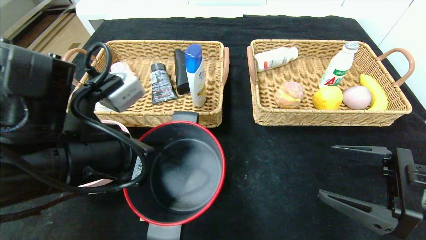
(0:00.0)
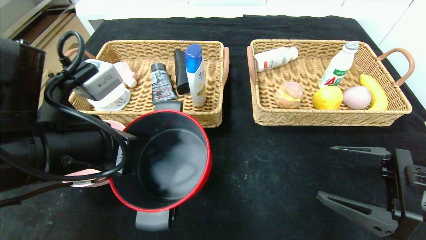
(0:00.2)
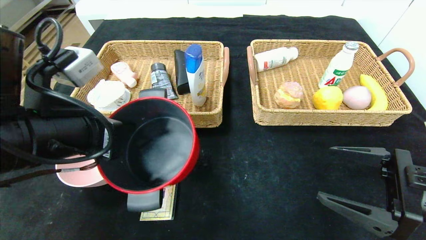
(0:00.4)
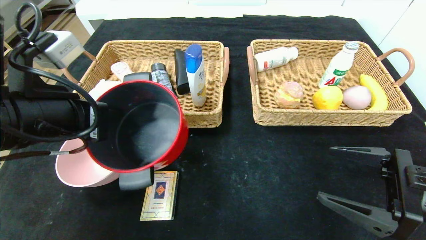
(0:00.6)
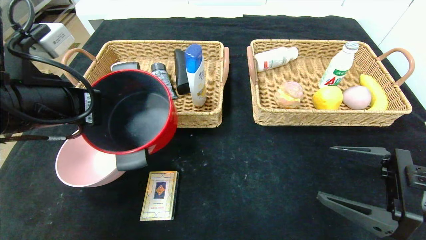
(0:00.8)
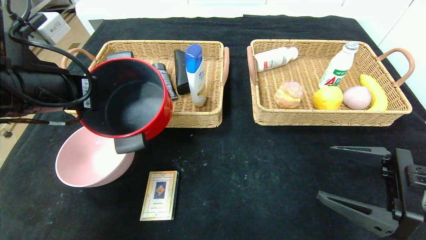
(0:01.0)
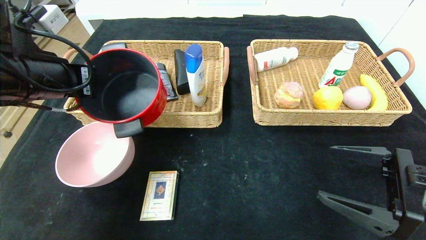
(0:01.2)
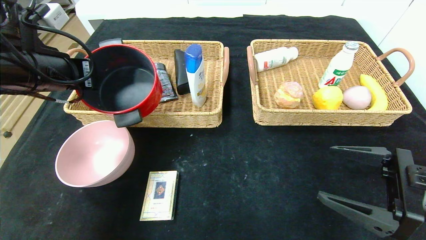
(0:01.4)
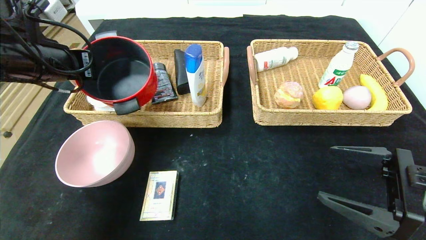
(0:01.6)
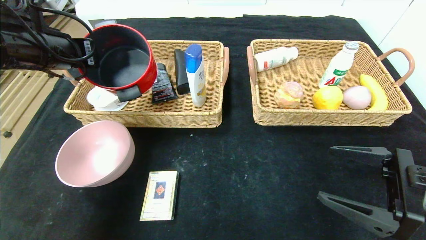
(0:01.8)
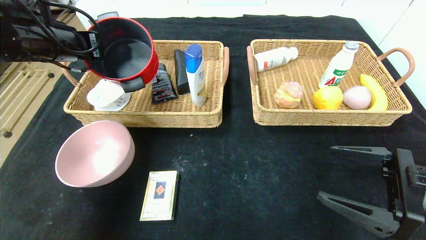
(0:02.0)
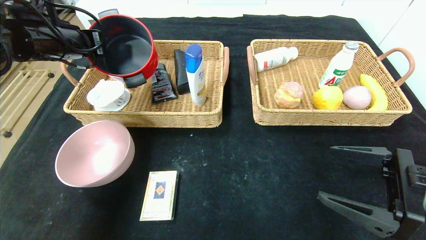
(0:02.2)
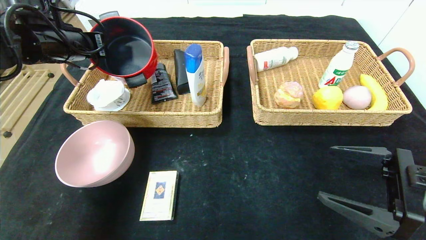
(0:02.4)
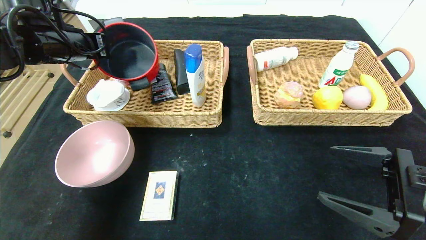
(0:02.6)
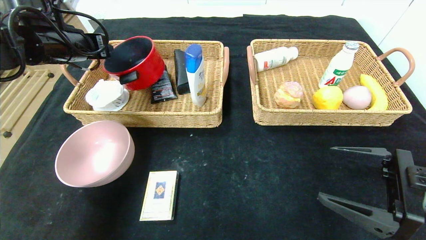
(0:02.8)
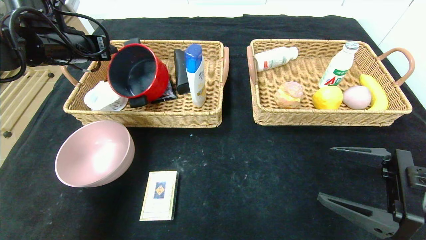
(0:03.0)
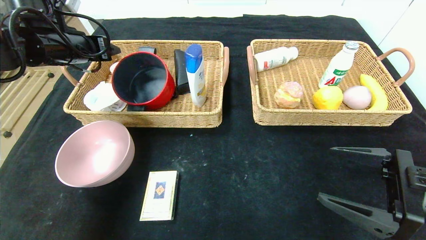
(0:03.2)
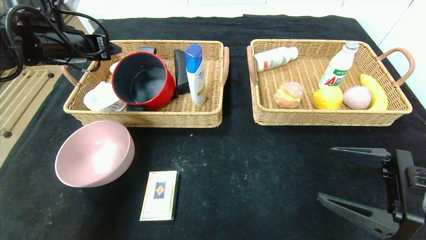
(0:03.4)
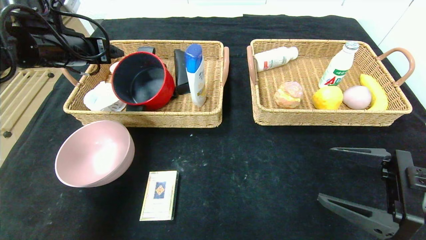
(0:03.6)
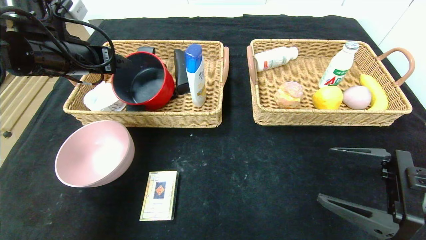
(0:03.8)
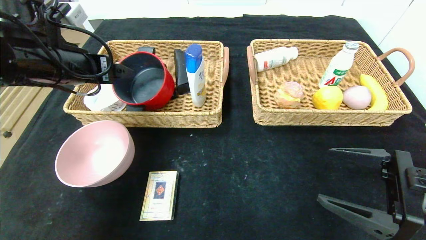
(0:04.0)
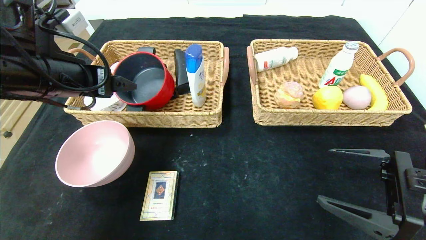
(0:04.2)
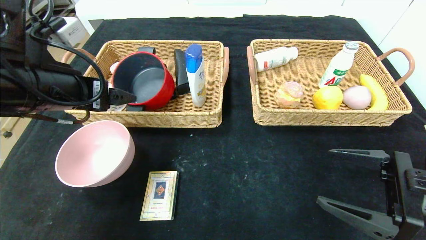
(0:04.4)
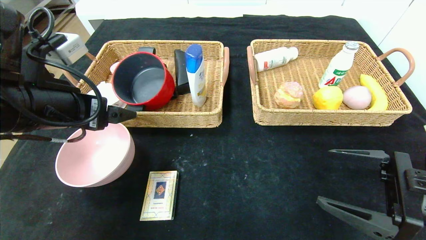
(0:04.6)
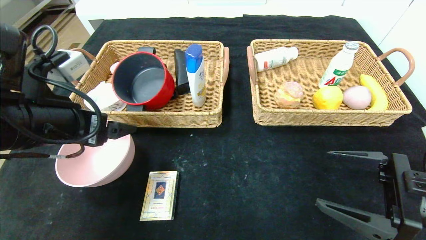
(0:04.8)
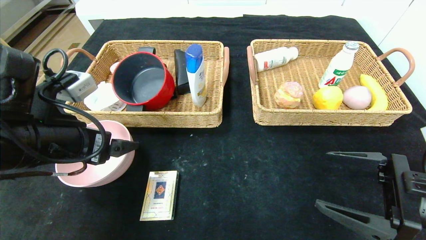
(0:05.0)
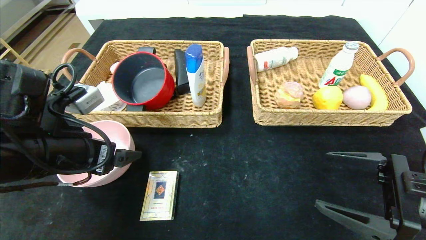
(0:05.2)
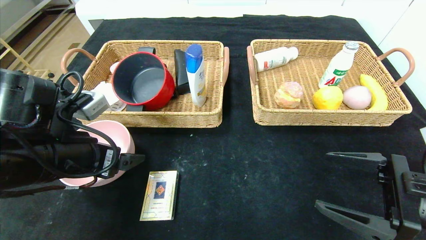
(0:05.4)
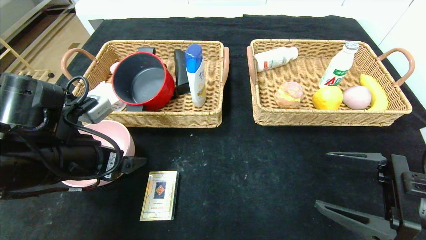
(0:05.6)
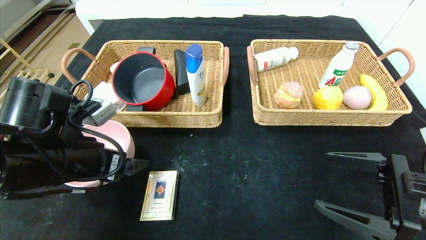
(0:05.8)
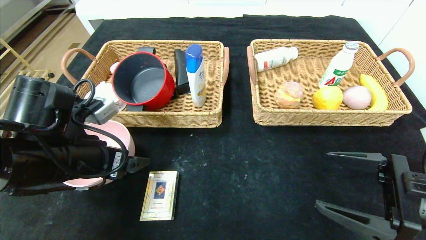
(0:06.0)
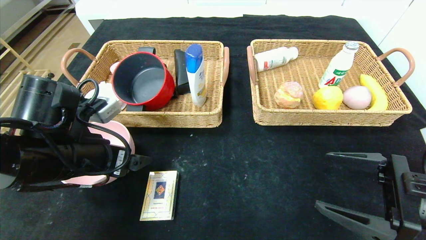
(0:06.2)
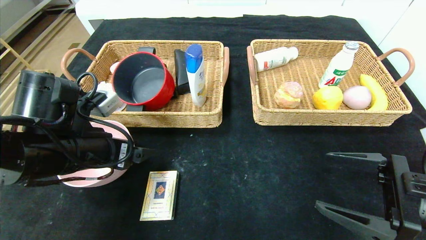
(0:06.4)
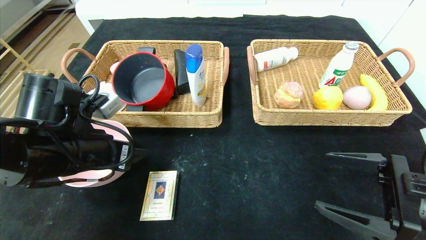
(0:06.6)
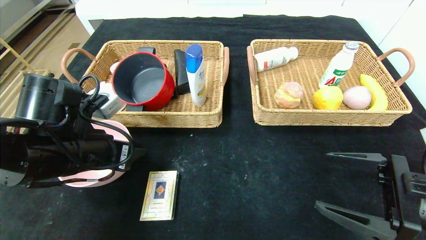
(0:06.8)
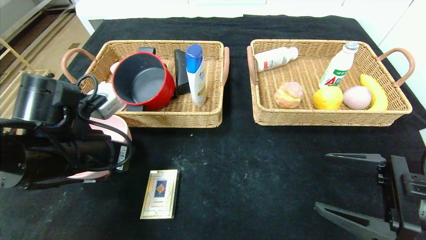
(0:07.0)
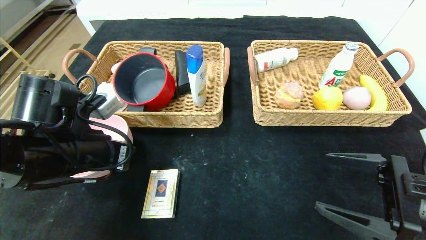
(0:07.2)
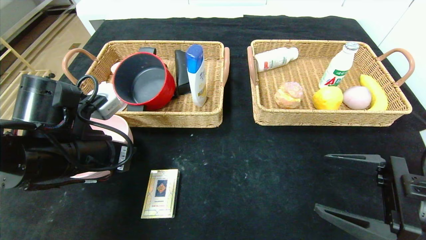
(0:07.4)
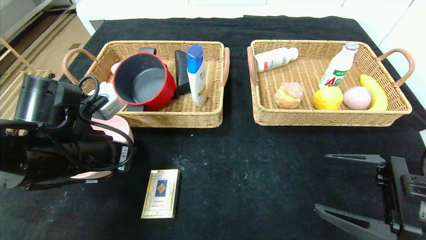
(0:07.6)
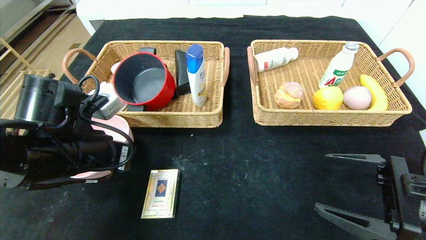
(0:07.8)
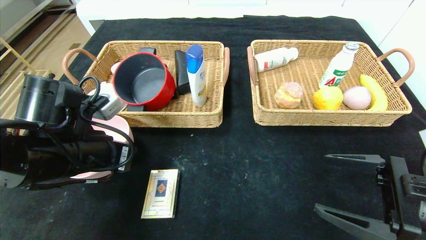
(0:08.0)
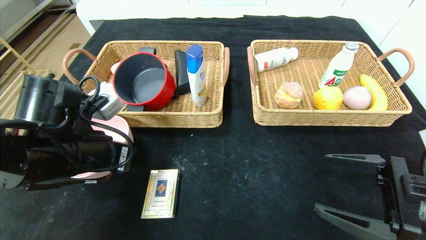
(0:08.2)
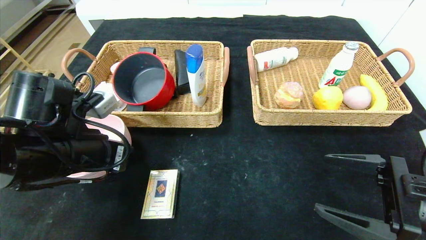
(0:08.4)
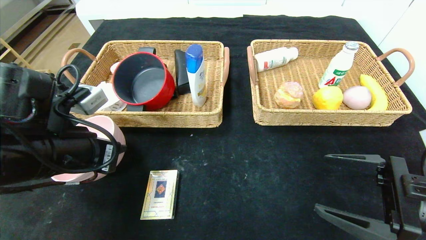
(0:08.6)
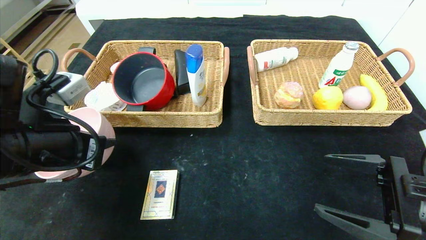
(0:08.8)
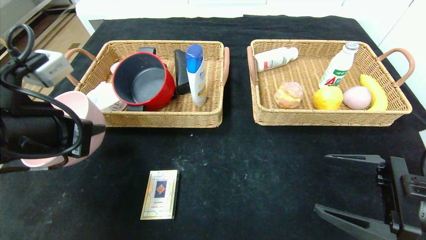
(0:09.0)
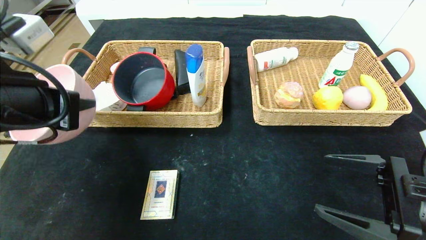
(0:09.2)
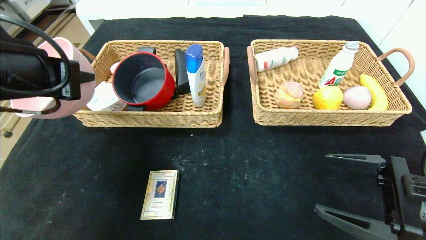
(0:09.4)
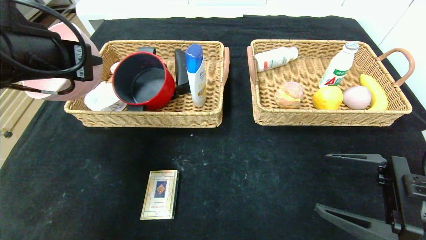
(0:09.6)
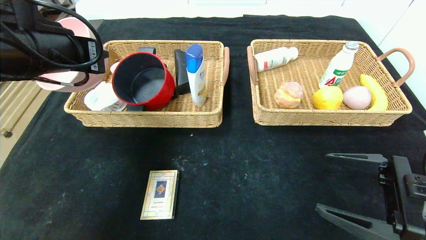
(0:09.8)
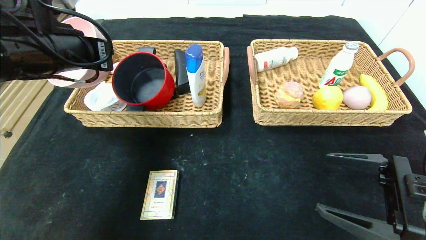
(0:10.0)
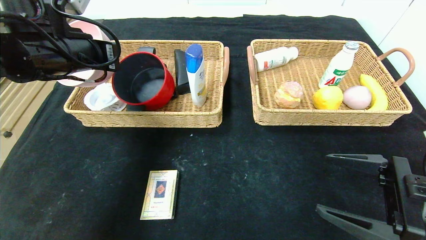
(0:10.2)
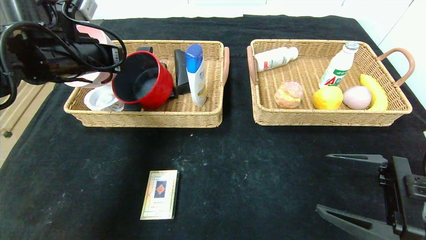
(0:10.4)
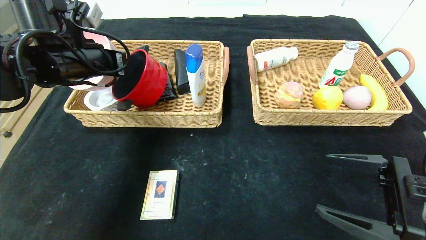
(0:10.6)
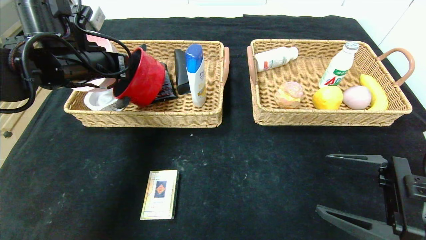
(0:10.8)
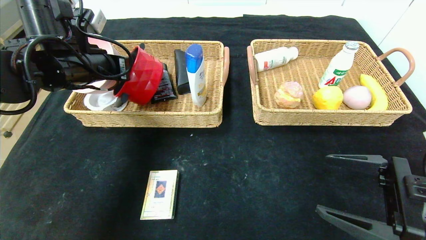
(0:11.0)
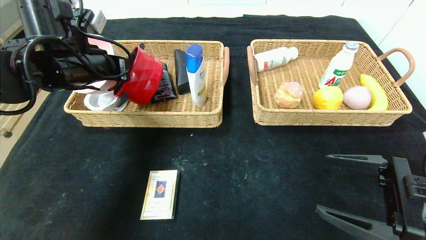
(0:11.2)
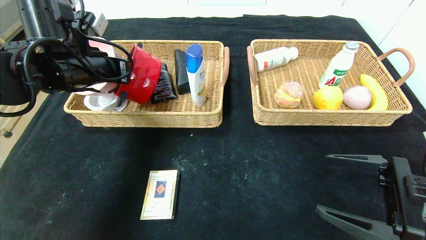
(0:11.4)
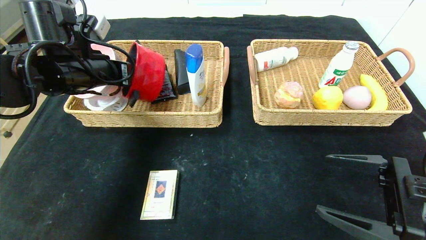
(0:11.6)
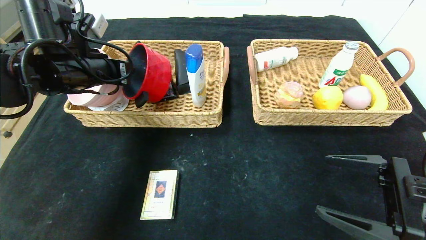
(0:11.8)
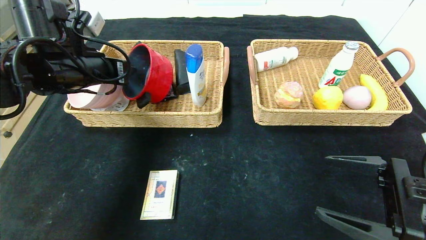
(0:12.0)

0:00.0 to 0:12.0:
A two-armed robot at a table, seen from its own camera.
Step, 0:00.0 to 0:03.6: Grasp the red pot and put it in the left basket.
0:00.0 to 0:01.6: The left gripper moves forward, to the left and upward, roughly 20 cm.
0:01.6 to 0:03.0: The left gripper moves forward, about 5 cm, and opens up.
0:03.0 to 0:04.4: The left gripper moves backward and to the right, about 15 cm, and opens its fingers.
0:04.4 to 0:06.0: The left gripper goes roughly 10 cm downward.
0:06.0 to 0:07.6: The left gripper closes its fingers.
0:07.6 to 0:09.0: The left gripper shifts approximately 5 cm upward.
0:09.0 to 0:10.4: The left gripper is displaced forward by about 15 cm.
0:10.4 to 0:12.0: The left gripper opens up.

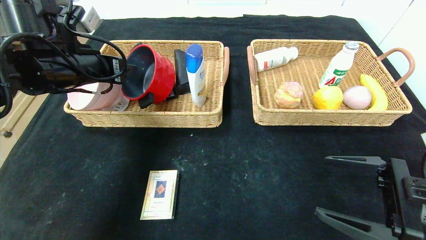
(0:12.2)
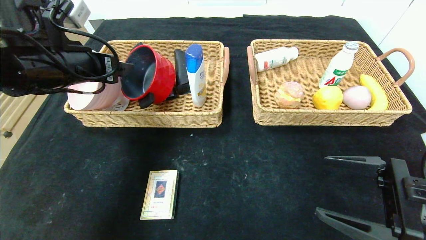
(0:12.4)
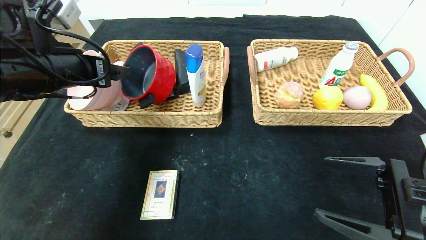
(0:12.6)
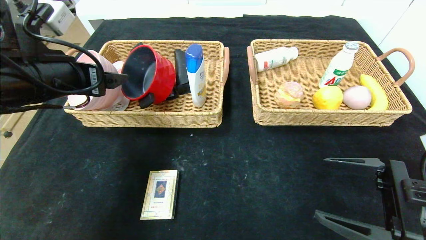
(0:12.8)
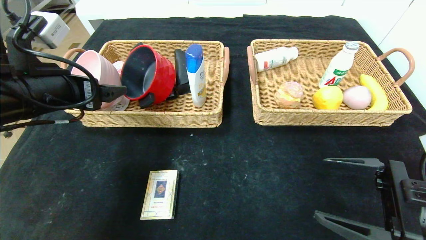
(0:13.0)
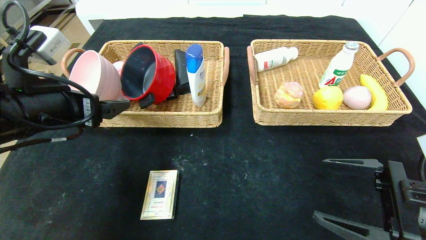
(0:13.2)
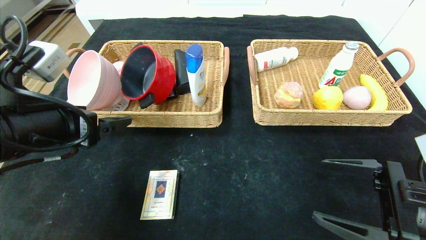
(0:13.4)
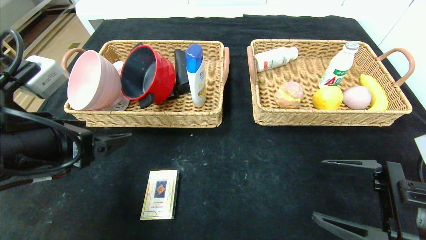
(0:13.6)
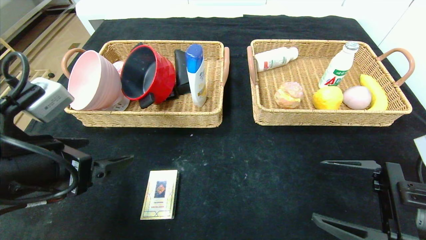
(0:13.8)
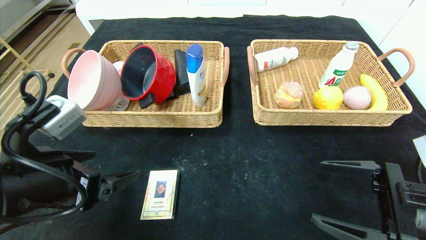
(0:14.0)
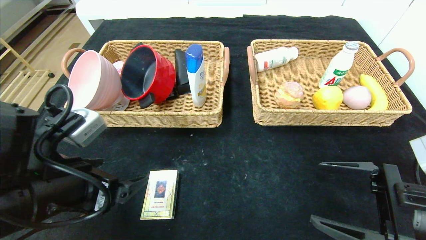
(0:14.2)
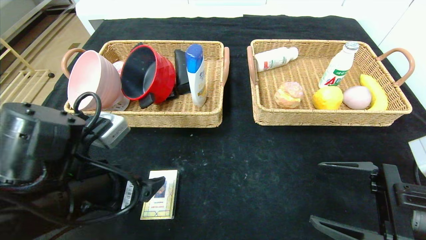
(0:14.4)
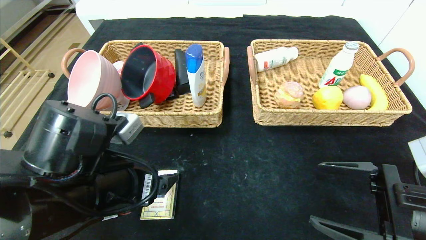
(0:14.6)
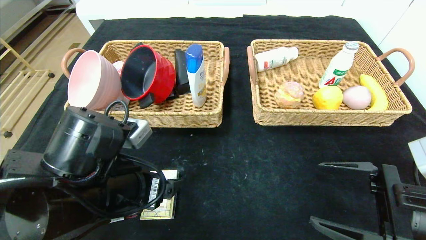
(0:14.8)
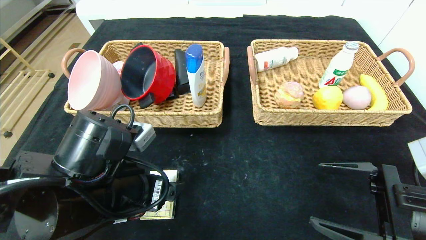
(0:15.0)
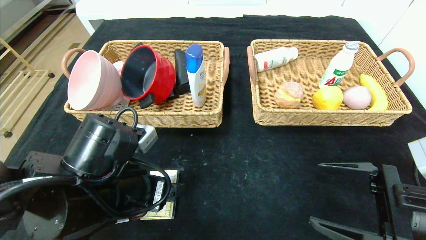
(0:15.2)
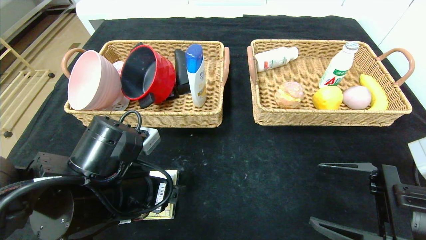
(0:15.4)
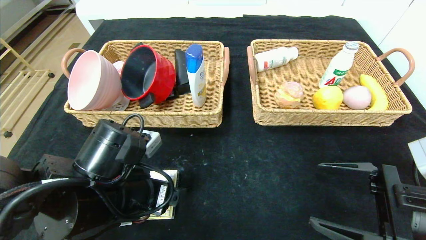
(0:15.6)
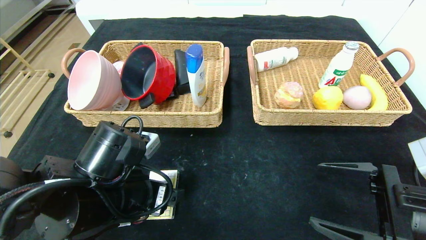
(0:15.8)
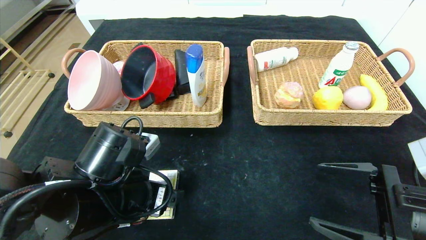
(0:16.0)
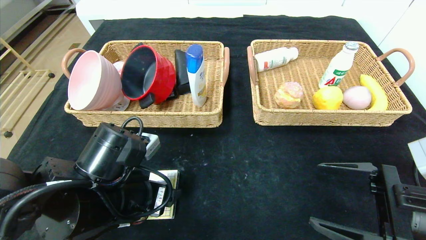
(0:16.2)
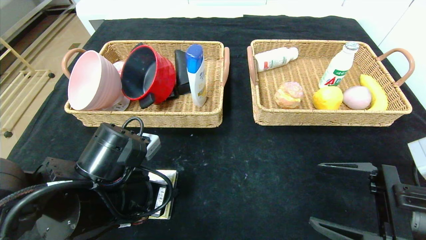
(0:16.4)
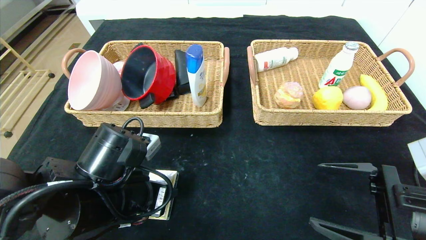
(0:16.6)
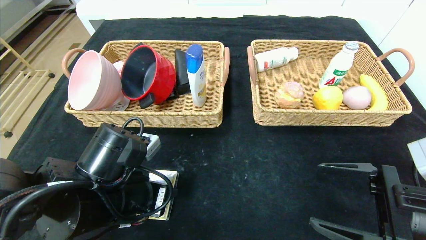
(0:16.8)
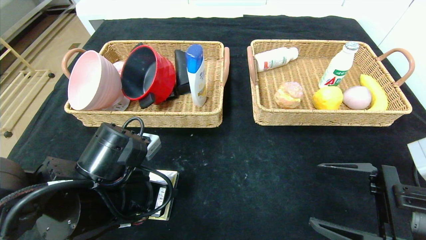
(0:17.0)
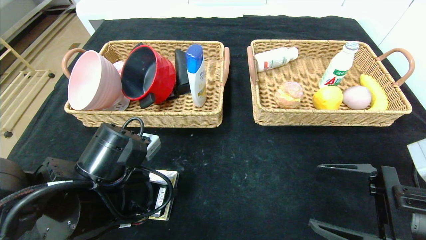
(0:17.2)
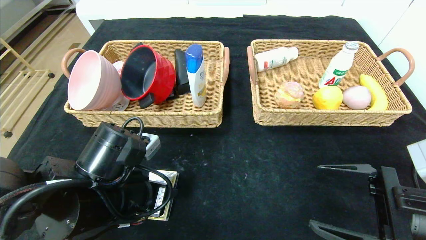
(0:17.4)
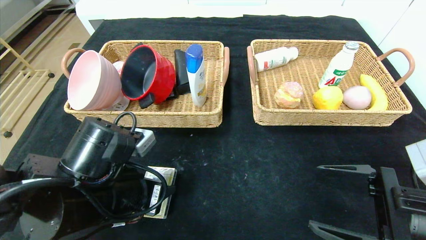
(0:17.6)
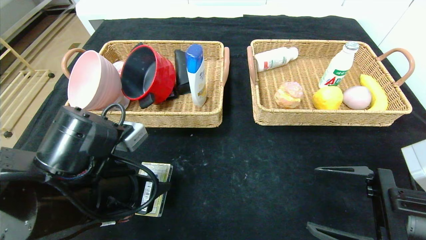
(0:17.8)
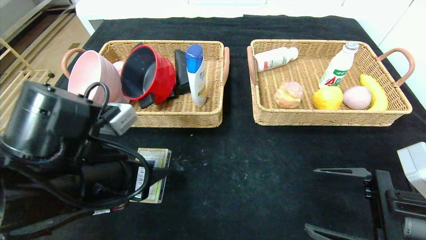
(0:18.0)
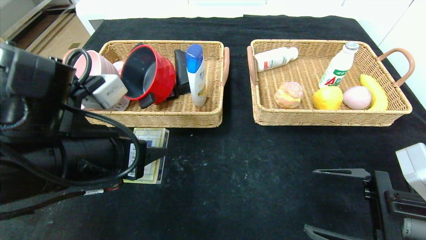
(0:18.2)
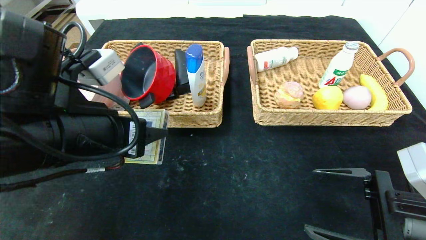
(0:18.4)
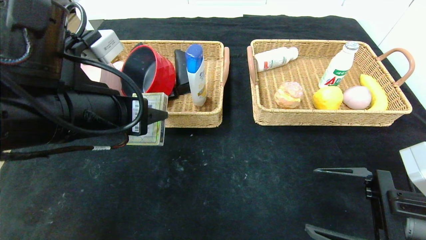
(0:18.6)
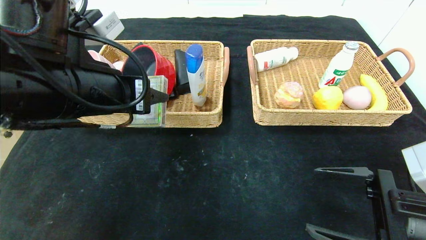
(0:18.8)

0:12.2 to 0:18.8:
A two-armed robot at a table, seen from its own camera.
0:12.2 to 0:13.8: The left gripper moves backward and downward, about 20 cm.
0:13.8 to 0:15.4: The left gripper shifts approximately 10 cm to the right and downward.
0:15.4 to 0:17.2: The left gripper closes its fingers.
0:17.2 to 0:18.8: The left gripper moves upward, roughly 15 cm.
